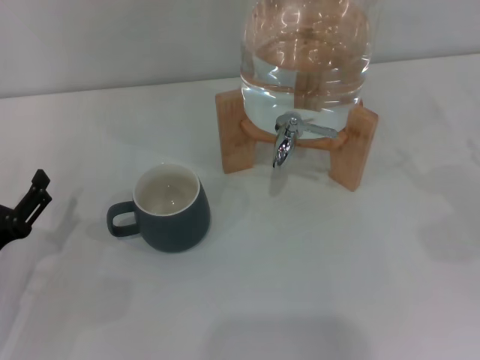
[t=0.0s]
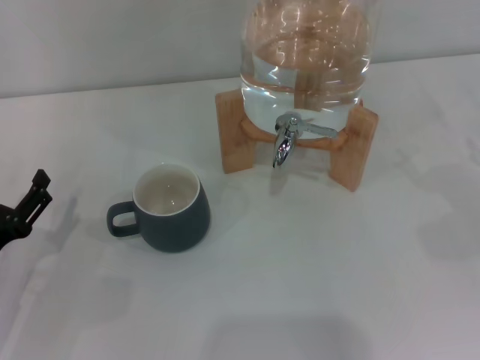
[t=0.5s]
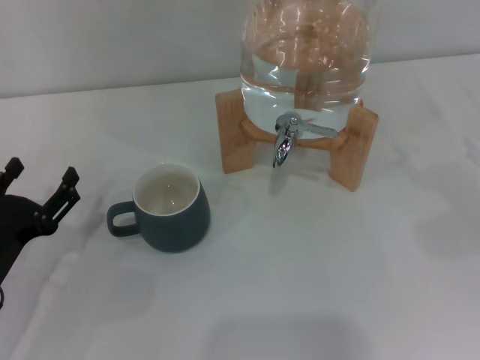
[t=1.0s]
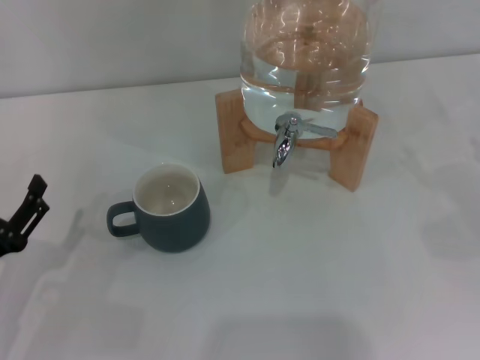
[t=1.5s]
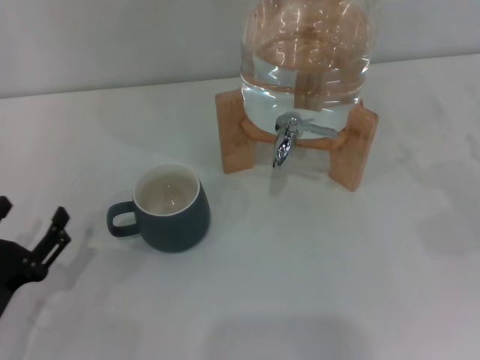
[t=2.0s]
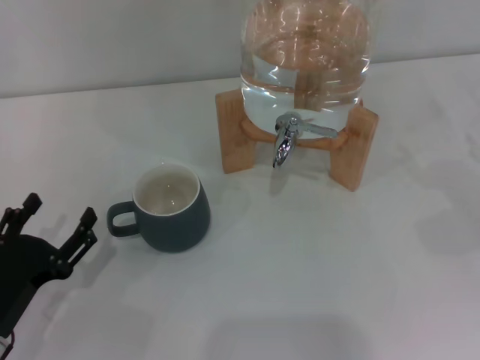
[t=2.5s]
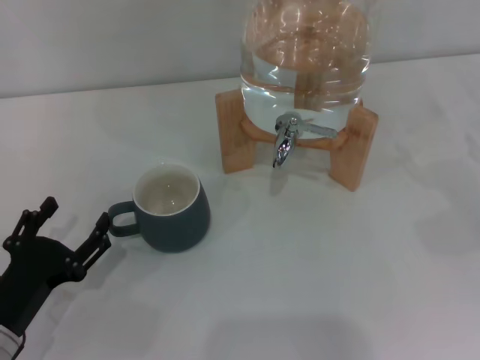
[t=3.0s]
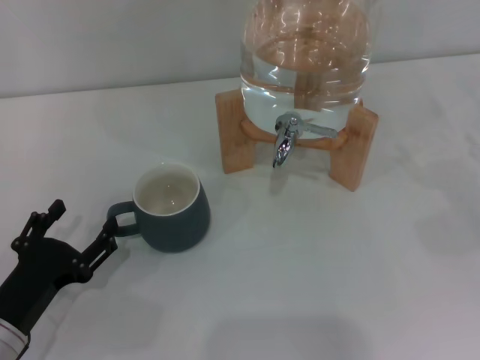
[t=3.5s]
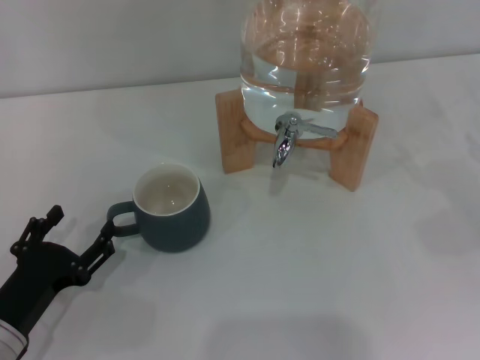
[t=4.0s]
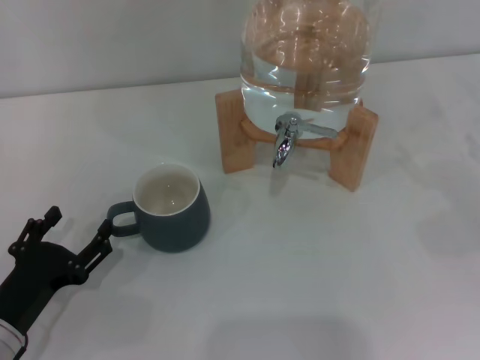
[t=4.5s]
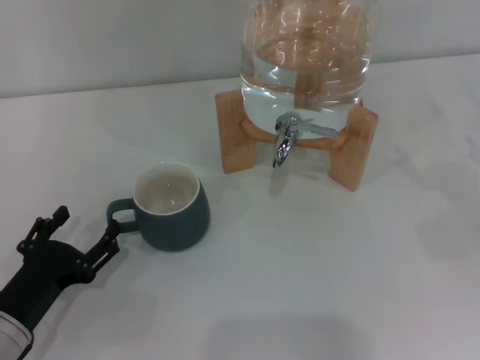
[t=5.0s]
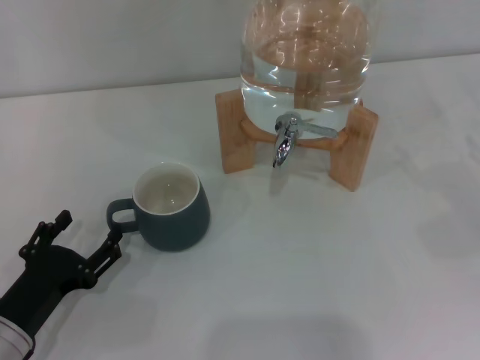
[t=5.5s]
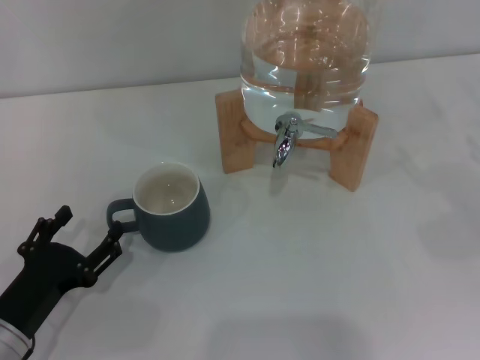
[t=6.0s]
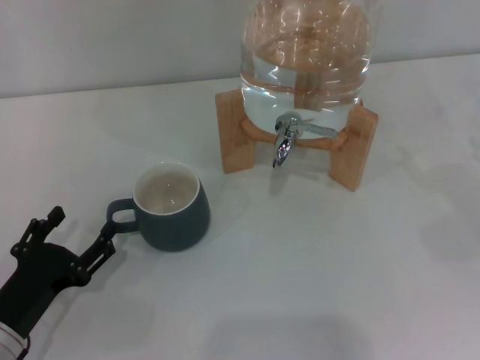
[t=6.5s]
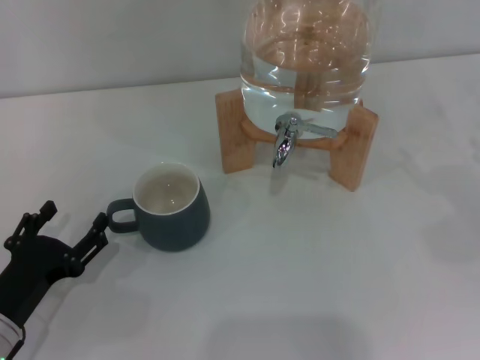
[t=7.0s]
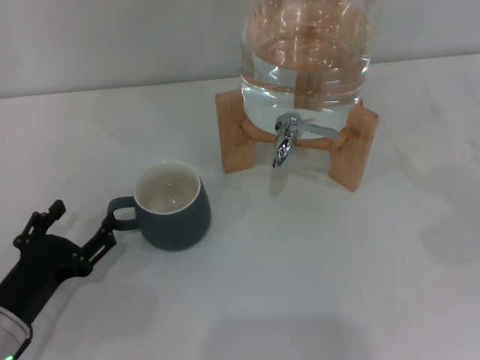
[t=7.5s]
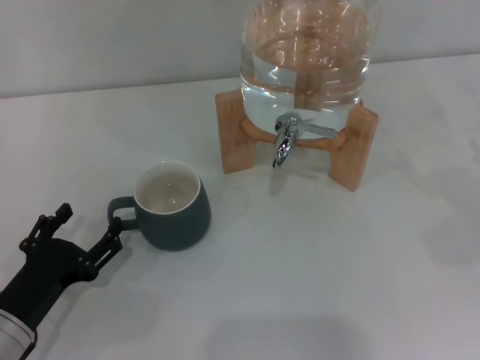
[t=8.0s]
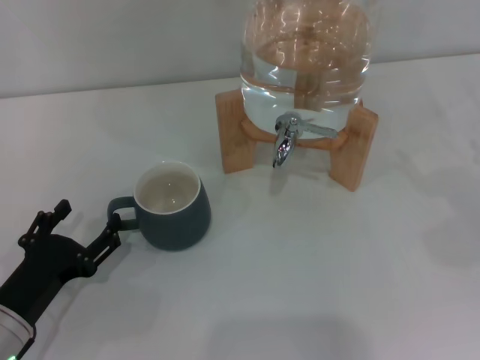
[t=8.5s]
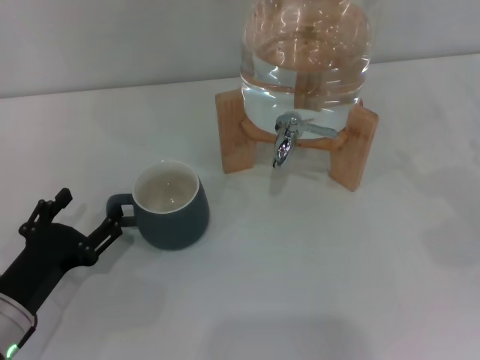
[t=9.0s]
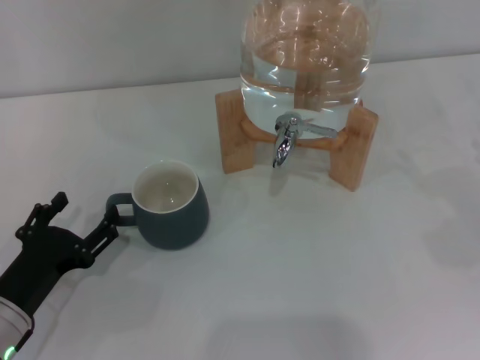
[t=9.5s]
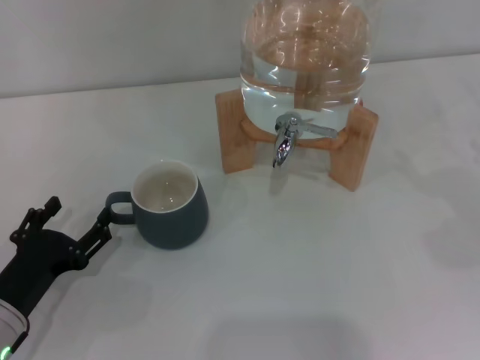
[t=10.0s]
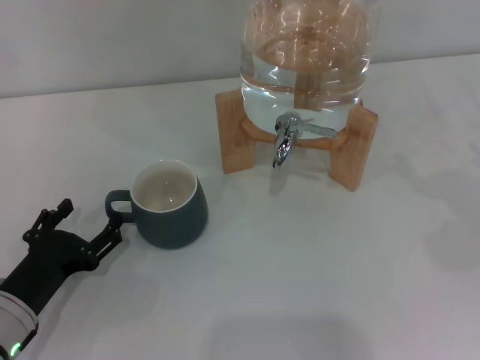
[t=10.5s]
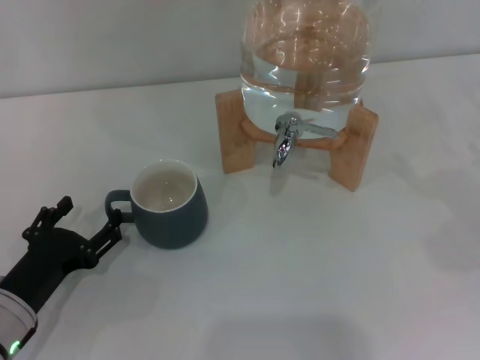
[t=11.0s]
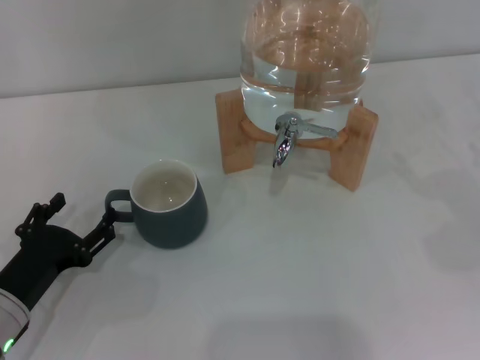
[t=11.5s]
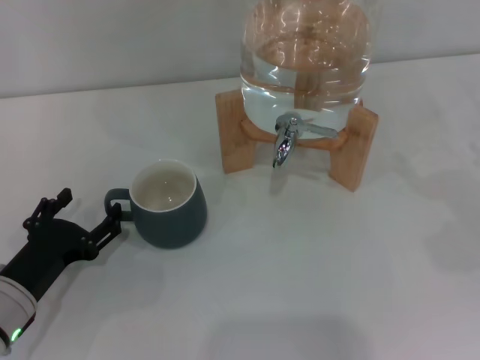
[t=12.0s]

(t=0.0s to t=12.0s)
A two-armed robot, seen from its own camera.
Task of the whole recording: the left gripper pick up the black cup and place it horizontally under the faucet, the right gripper turn on the faucet to fill the cup, and then turn off the faucet.
t=0.0s - t=4.0s: The grippers make only small movements.
t=4.0s - t=8.0s: Both grippers stay about where they are.
t=8.0s - t=12.0s: There are only small adjustments of the grippers.

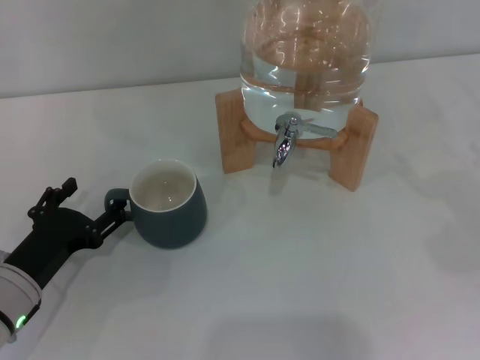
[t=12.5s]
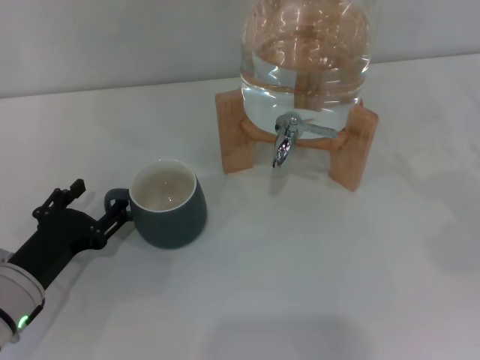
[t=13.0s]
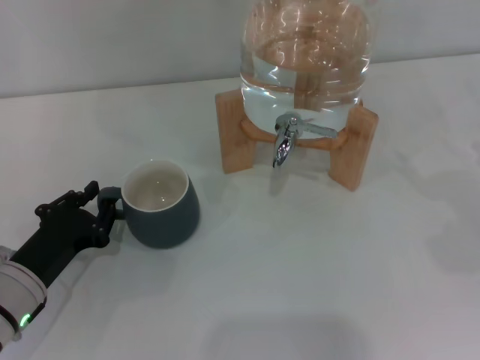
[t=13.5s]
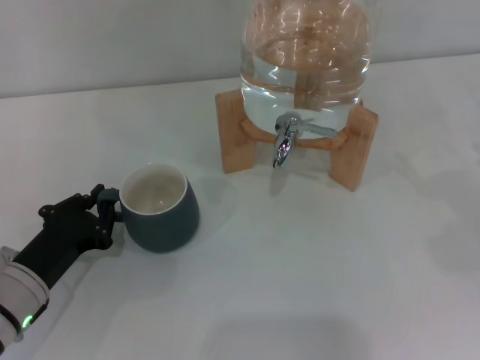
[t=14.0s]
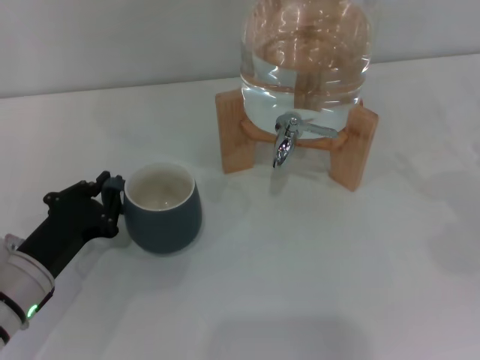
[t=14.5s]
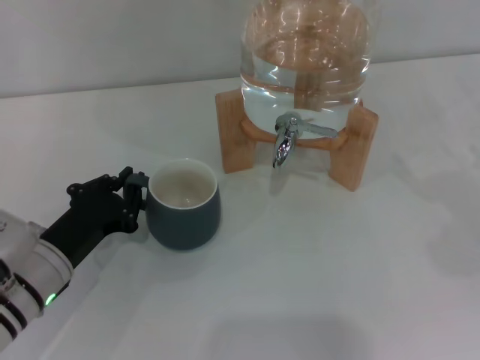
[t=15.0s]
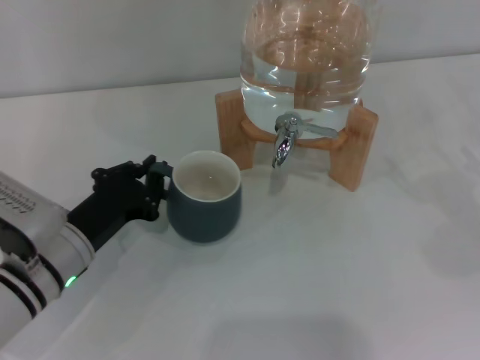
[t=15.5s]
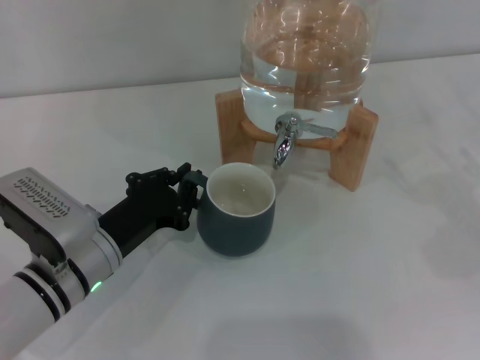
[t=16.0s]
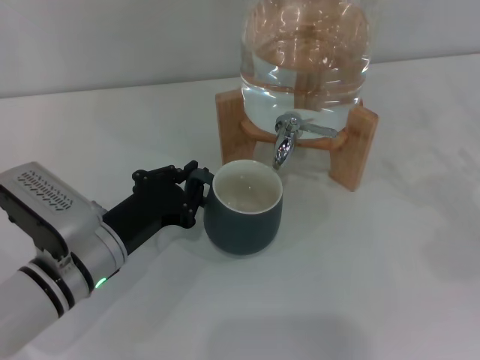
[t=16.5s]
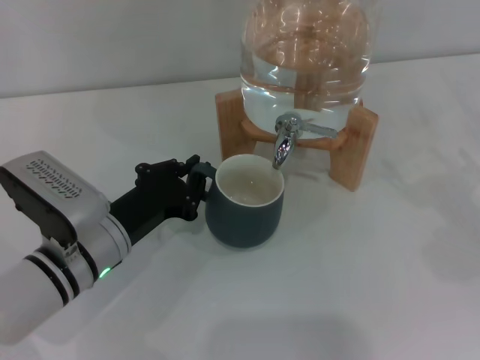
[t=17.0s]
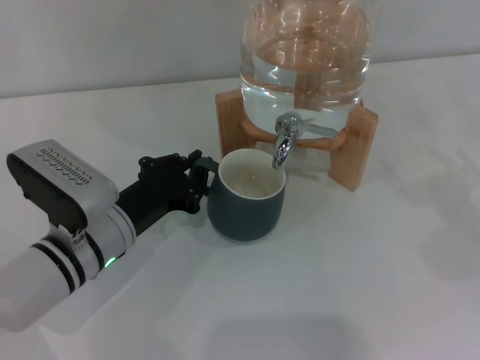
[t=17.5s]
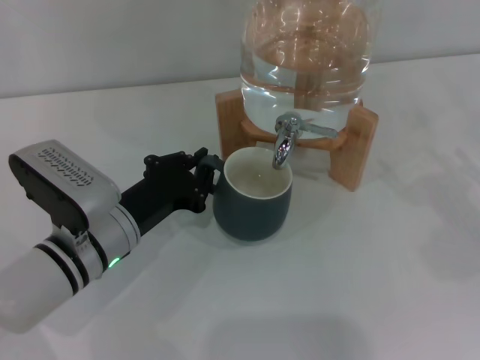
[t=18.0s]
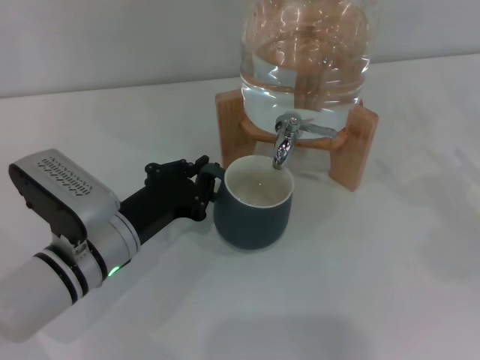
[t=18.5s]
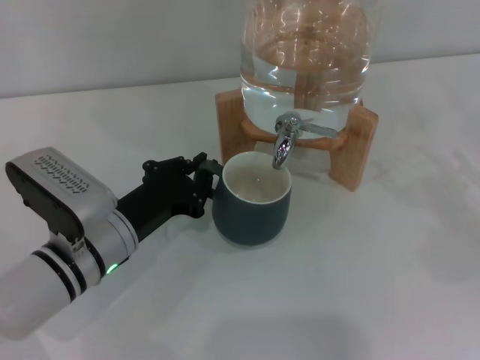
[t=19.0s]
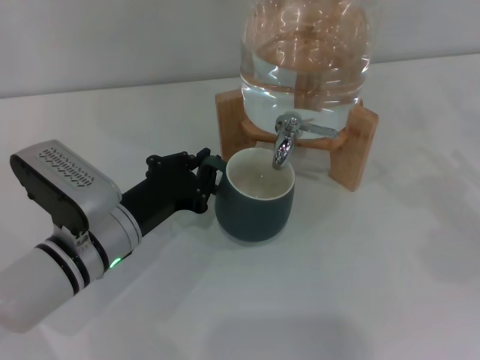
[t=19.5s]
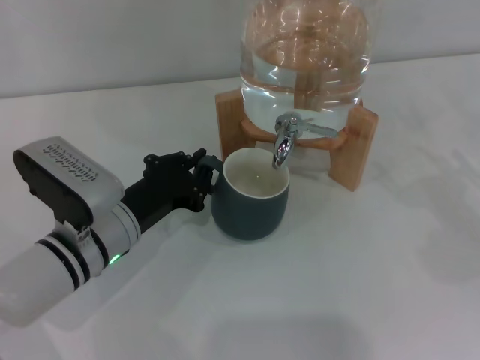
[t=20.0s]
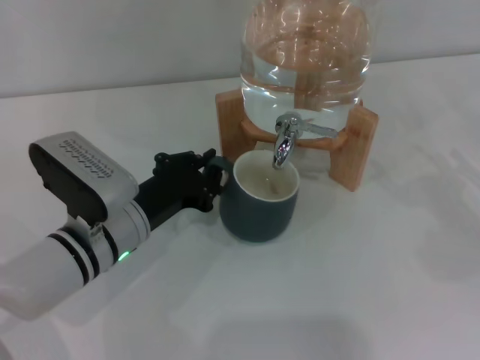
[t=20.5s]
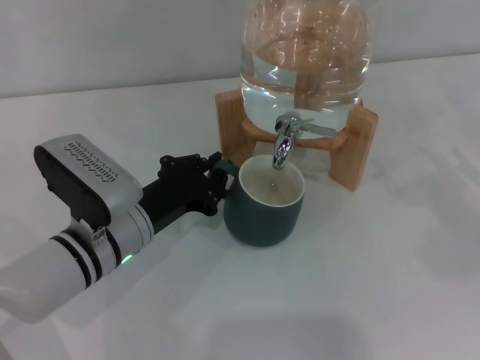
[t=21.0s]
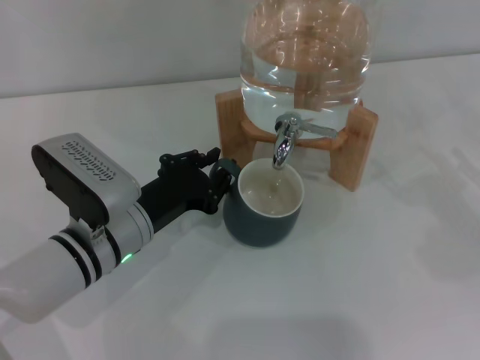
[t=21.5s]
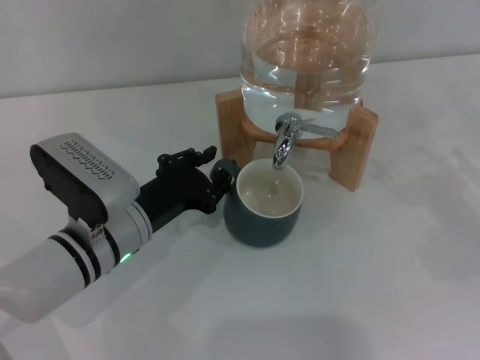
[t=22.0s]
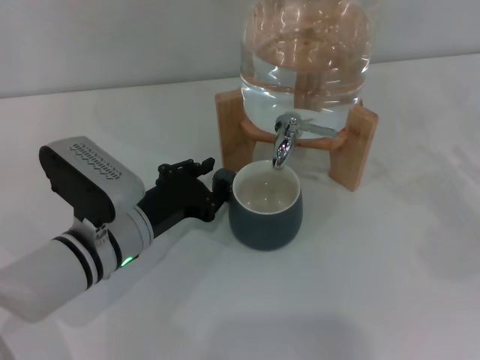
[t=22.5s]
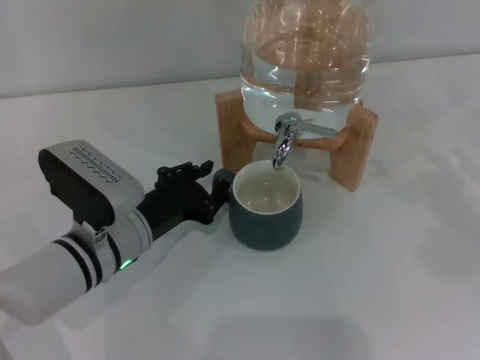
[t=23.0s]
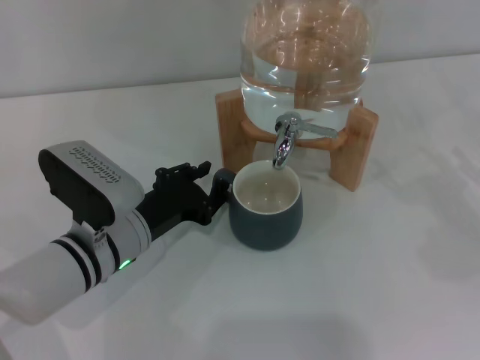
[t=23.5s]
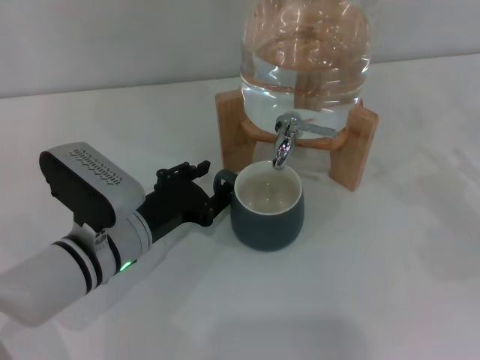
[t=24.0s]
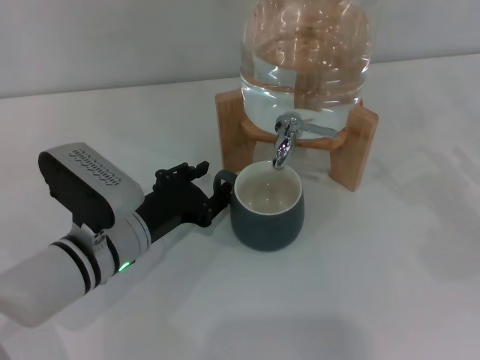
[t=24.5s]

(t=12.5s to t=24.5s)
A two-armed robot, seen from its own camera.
Task of the whole recording: the left gripper pick up the black cup and place it horizontally under the faucet, the right gripper turn on the faucet to fill the cup, and then turn off the faucet.
t=12.5s - t=14.5s: The left gripper closes.
t=14.5s - t=16.5s: The left gripper travels to the right by approximately 5 cm.
t=16.5s - t=20.5s: The grippers stay close to where they were, moving slightly.
t=20.5s - t=24.5s: The two grippers keep their place.

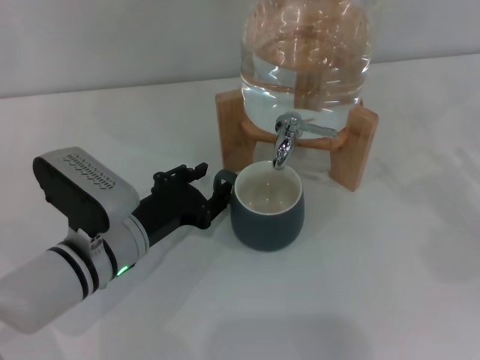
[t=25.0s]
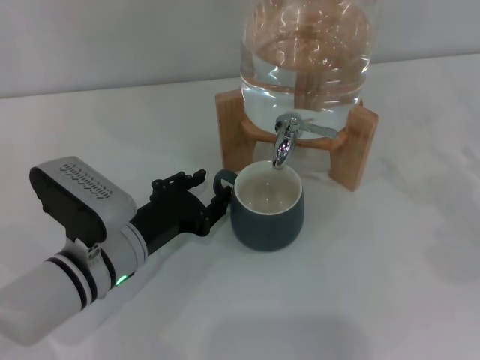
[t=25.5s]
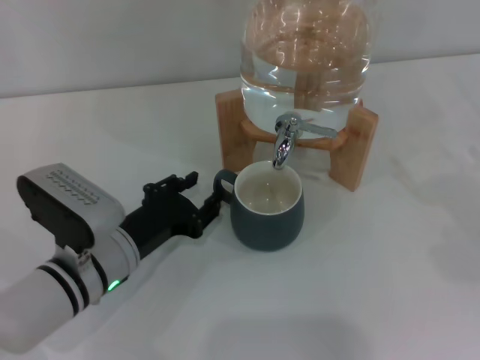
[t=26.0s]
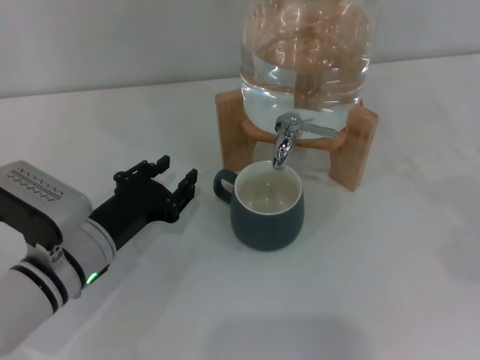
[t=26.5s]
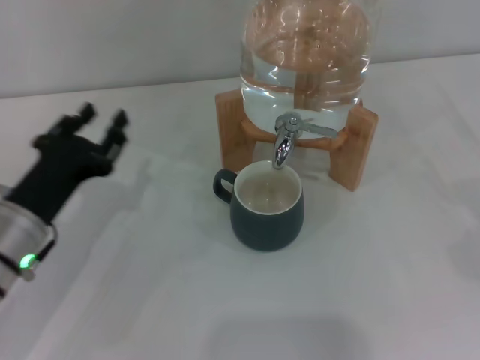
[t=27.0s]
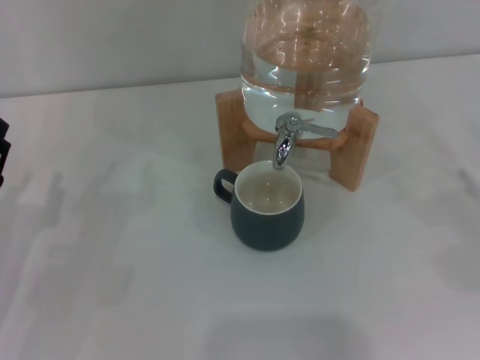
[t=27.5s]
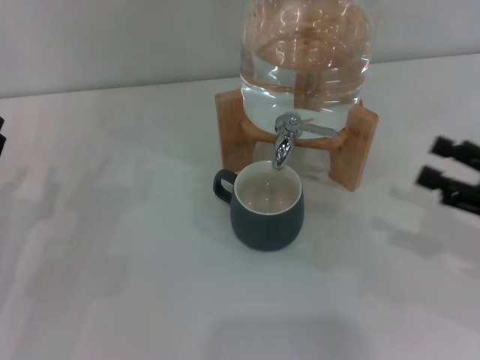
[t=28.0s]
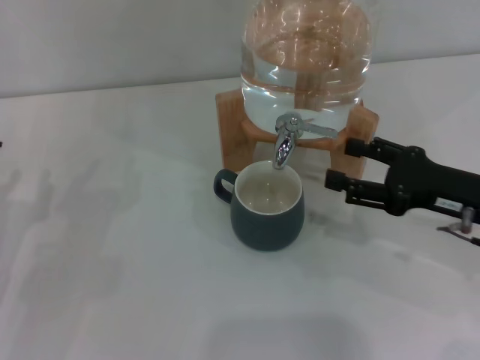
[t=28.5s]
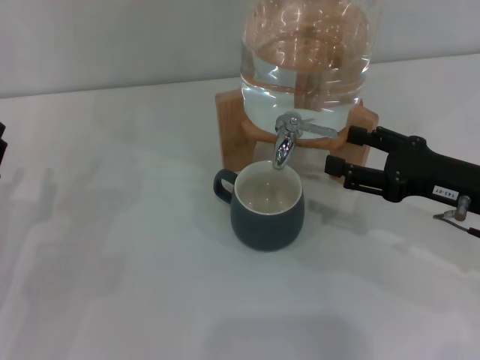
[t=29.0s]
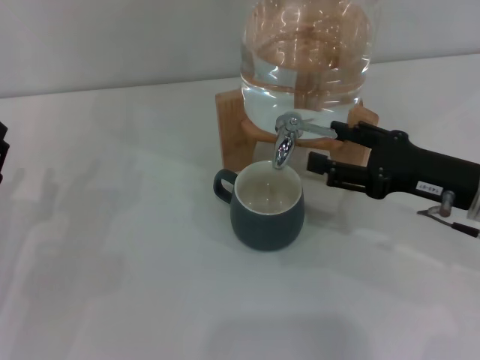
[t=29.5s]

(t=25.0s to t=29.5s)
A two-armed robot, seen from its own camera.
Task of the whole recording: the left gripper pick up the black cup and place it horizontally under the faucet, the right gripper turn on the faucet to fill the cup, and then turn off the faucet.
t=25.0s - t=27.0s: The left gripper travels to the left by some 10 cm.
t=27.0s - t=29.5s: The left gripper is displaced to the left by about 10 cm. Meanwhile the right gripper shifts some 15 cm to the left.
